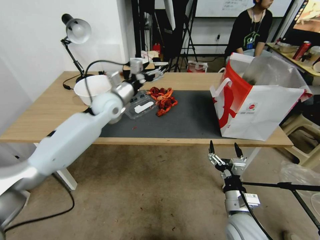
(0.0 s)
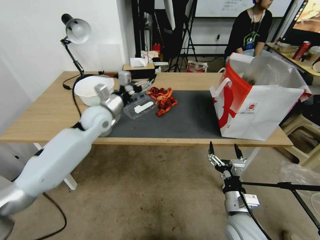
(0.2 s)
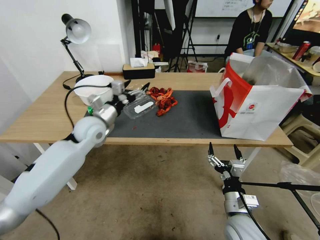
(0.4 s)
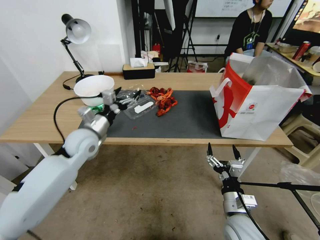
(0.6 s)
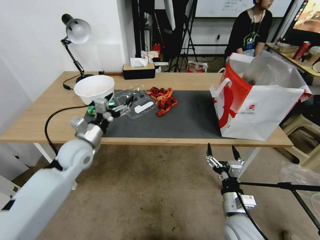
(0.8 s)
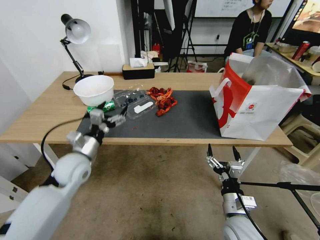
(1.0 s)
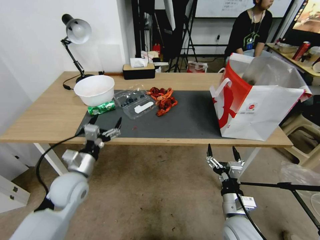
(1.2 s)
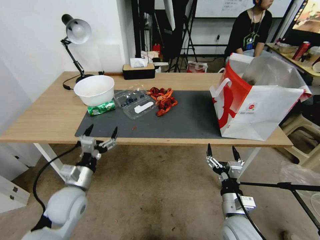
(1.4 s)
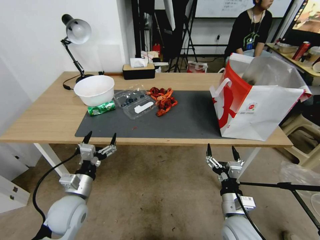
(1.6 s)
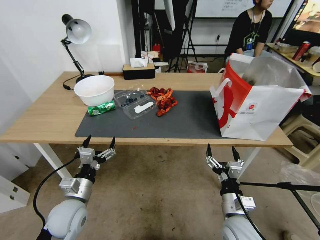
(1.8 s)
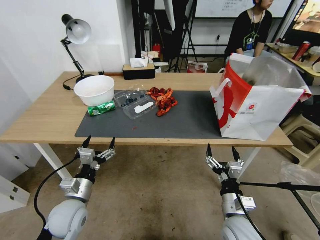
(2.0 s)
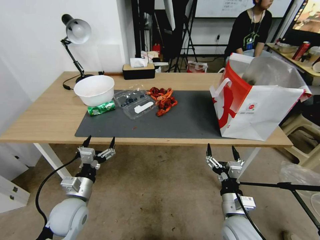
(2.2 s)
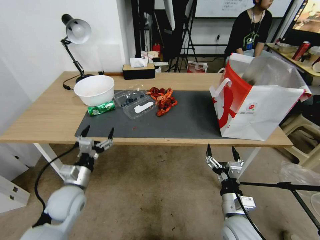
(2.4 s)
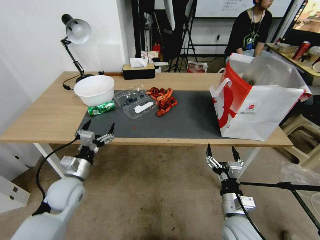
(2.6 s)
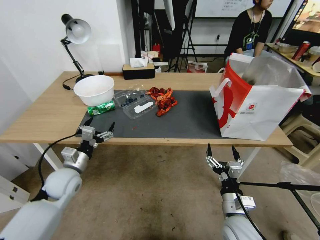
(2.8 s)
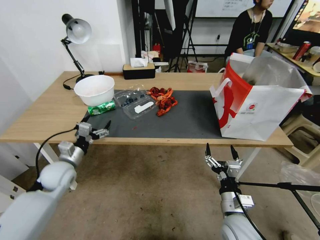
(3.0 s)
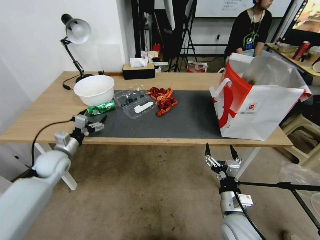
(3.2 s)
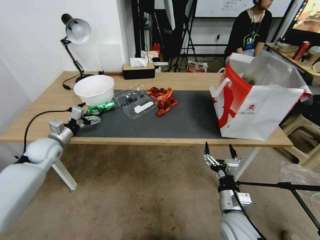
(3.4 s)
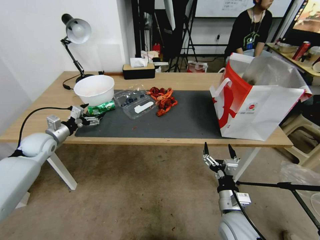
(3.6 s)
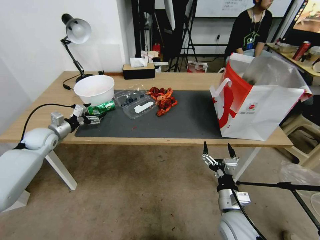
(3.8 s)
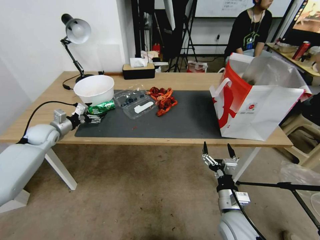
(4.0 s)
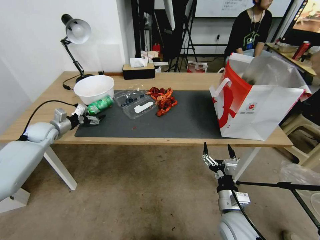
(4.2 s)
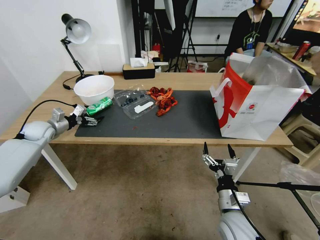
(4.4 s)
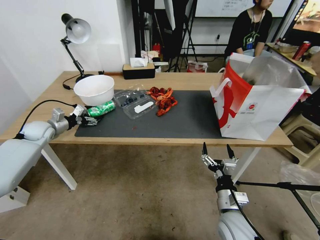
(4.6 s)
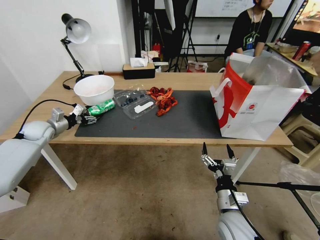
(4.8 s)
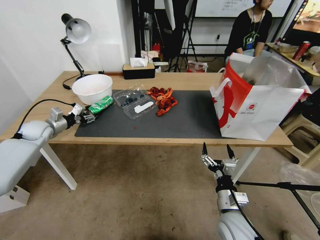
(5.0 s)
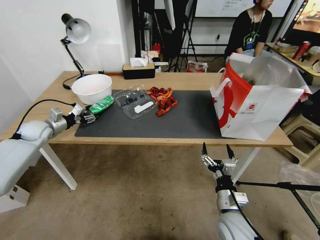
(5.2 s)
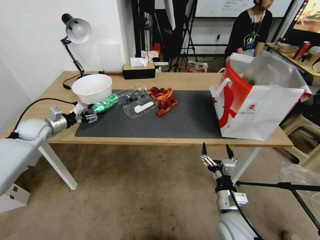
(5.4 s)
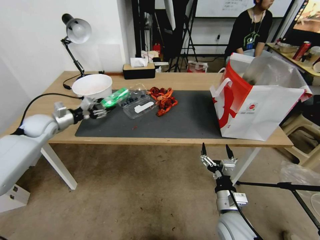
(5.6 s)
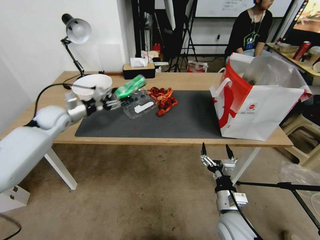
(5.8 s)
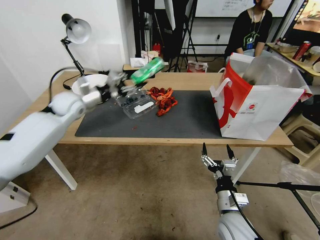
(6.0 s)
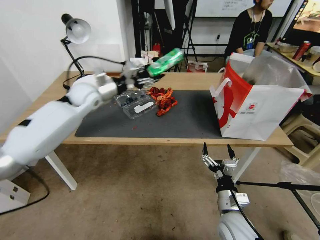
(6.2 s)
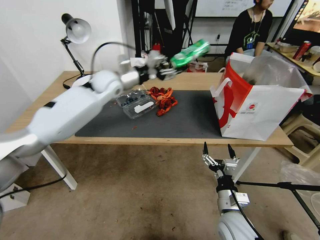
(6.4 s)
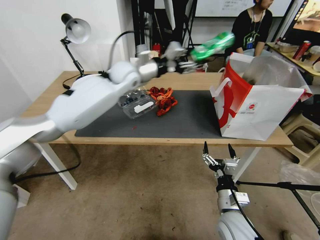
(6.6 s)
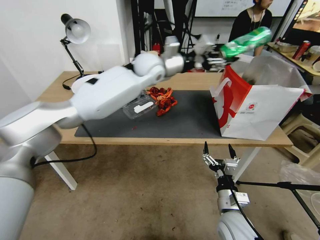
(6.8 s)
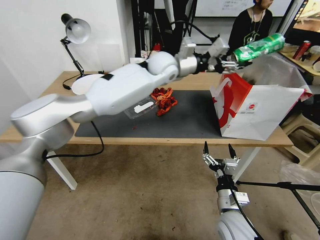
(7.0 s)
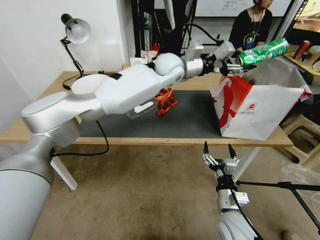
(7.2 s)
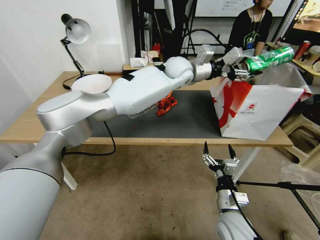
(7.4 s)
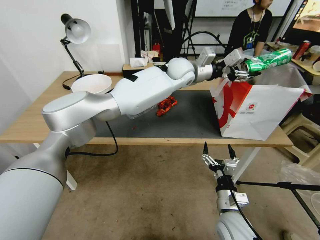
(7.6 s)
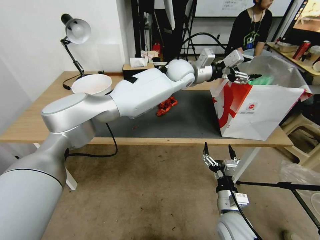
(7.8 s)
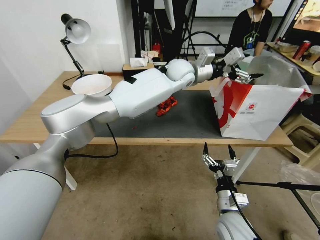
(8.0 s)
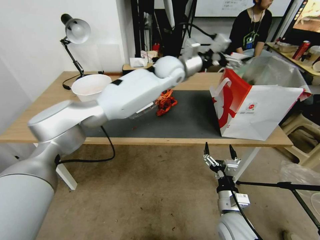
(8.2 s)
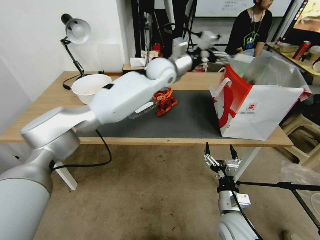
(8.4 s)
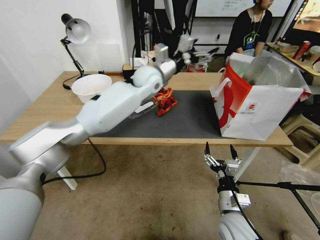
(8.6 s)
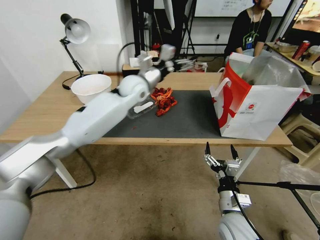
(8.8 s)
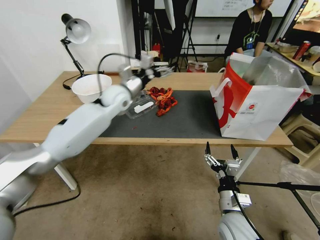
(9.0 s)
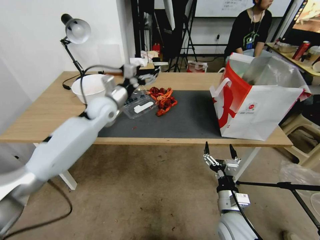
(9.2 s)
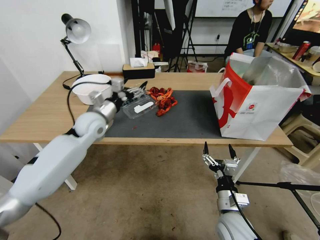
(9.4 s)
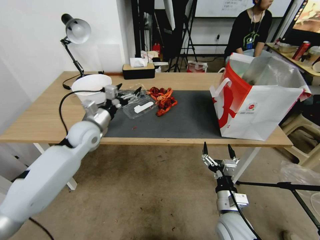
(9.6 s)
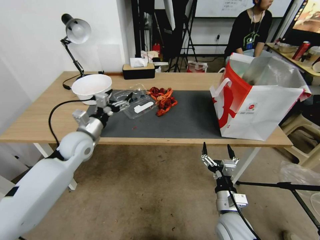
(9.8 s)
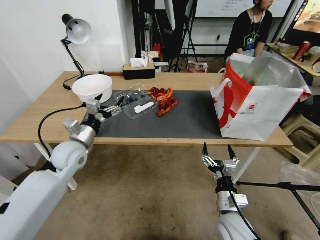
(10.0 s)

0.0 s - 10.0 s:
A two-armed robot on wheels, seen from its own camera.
0.0 s - 1.4 s: The left gripper travels backward and downward by approximately 30 cm.
1.4 s - 2.8 s: The left gripper heads forward, covering roughly 5 cm.
2.8 s - 4.2 s: The left gripper is displaced forward and to the left by some 25 cm.
4.2 s - 5.8 s: The left gripper travels to the right and upward by roughly 10 cm, and closes up.
5.8 s - 7.2 s: The left gripper travels to the right by about 40 cm.
7.2 s - 8.6 s: The left gripper goes some 10 cm to the left, and opens.
8.6 s - 10.0 s: The left gripper goes some 35 cm to the left, backward and downward.

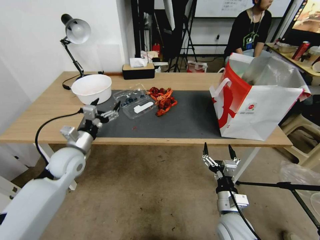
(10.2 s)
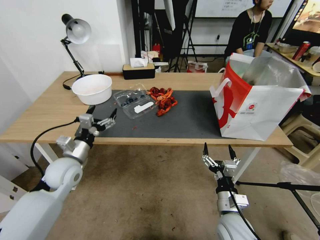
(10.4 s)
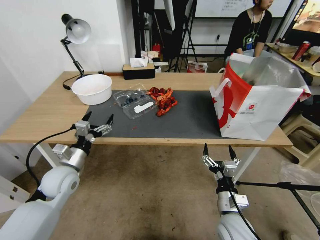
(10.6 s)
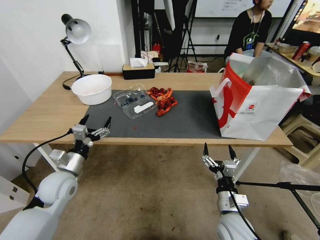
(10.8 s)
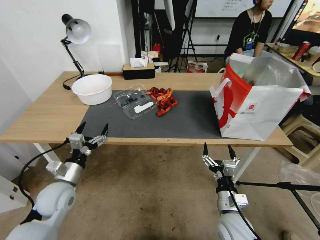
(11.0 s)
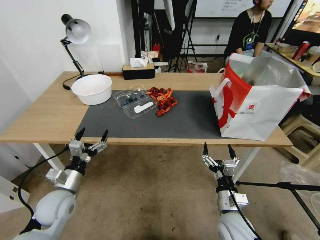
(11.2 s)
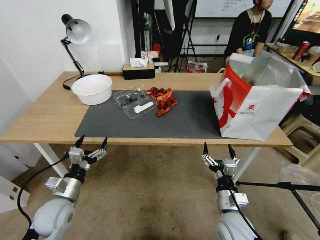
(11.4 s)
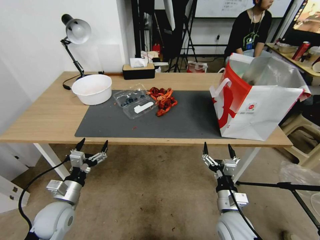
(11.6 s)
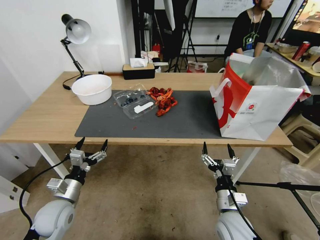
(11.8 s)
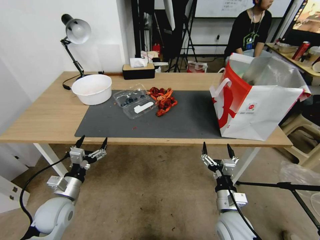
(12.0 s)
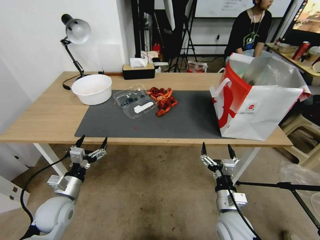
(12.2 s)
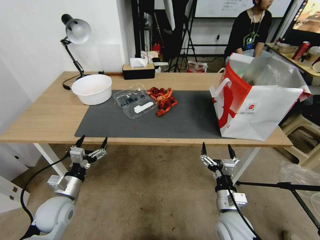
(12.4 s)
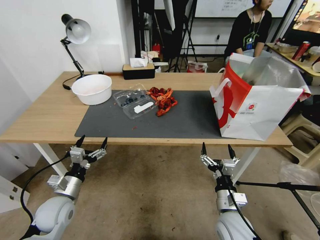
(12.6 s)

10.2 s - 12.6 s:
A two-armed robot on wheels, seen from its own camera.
10.2 s - 11.4 s: The left gripper goes some 15 cm backward and downward.
11.4 s - 12.6 s: Both grippers stay put.
